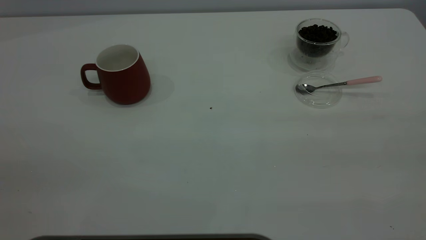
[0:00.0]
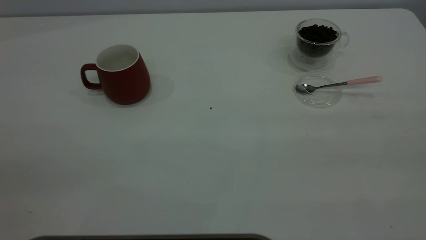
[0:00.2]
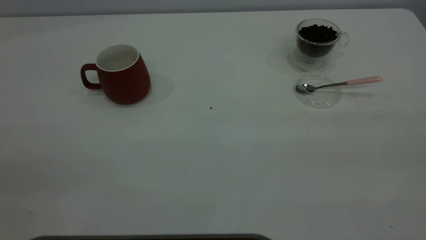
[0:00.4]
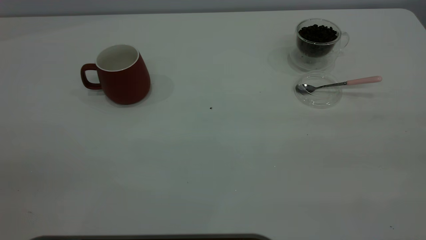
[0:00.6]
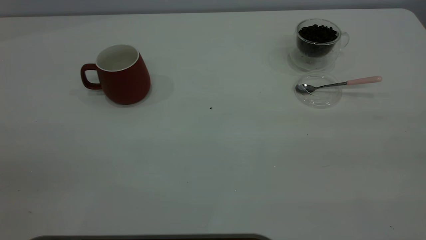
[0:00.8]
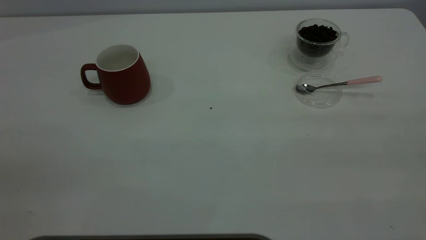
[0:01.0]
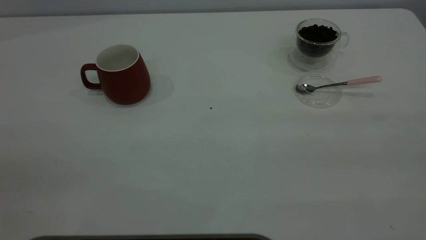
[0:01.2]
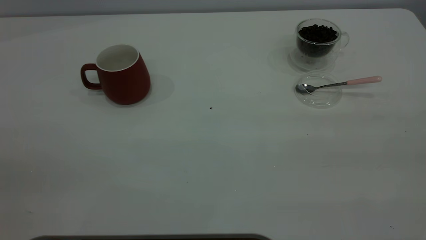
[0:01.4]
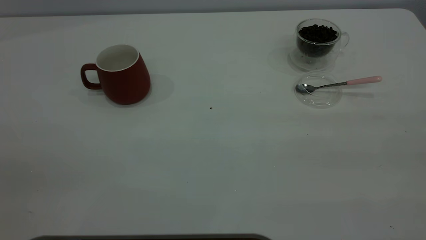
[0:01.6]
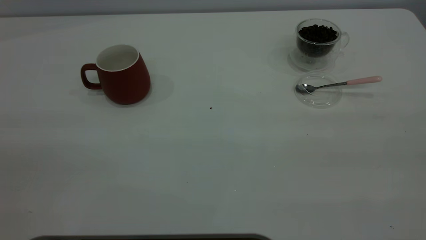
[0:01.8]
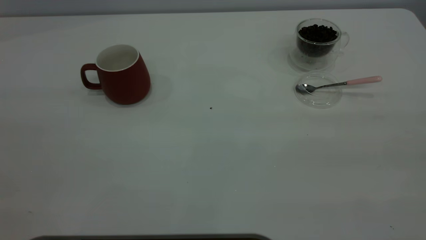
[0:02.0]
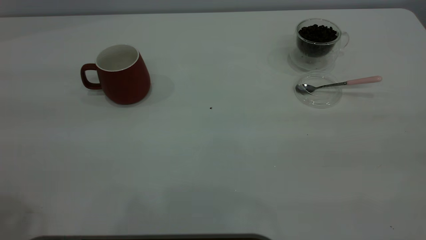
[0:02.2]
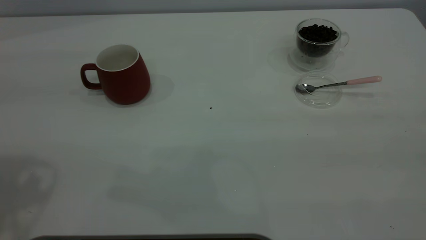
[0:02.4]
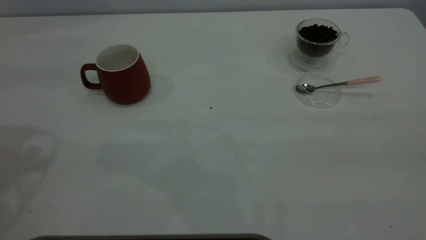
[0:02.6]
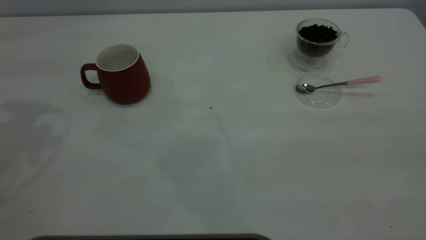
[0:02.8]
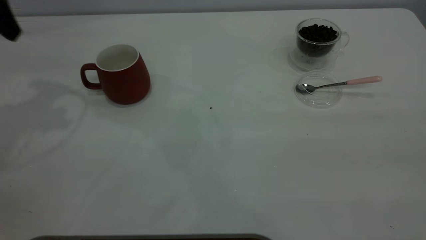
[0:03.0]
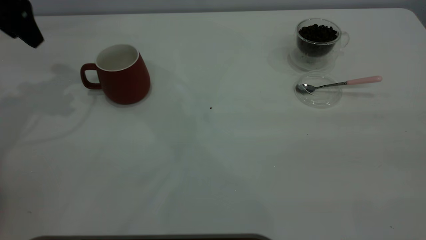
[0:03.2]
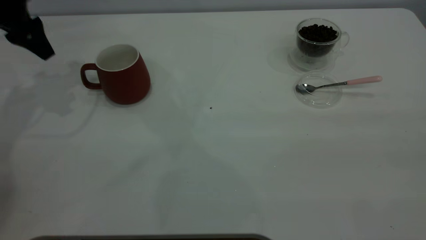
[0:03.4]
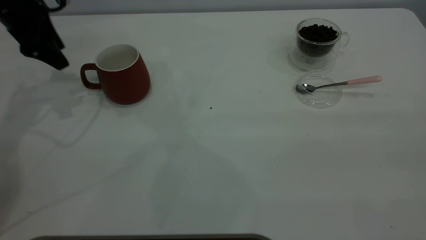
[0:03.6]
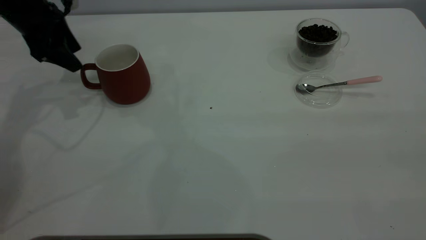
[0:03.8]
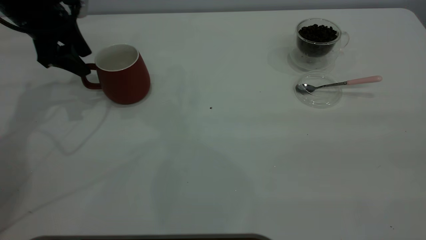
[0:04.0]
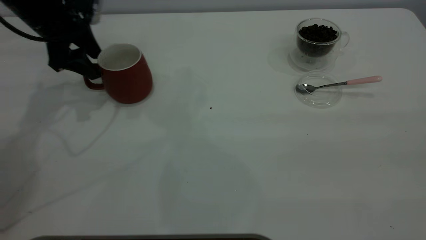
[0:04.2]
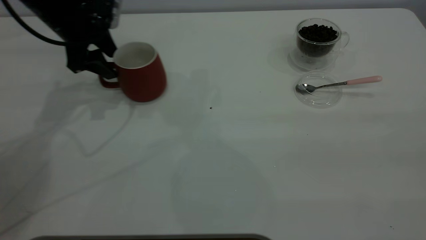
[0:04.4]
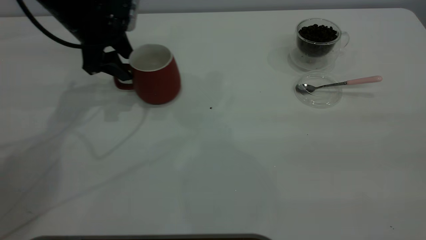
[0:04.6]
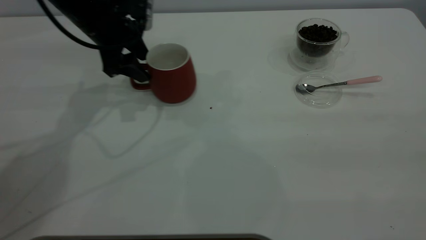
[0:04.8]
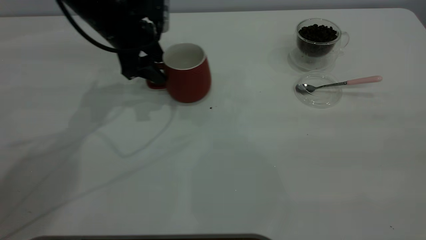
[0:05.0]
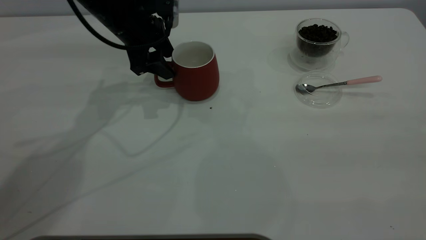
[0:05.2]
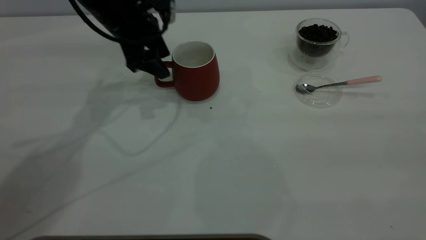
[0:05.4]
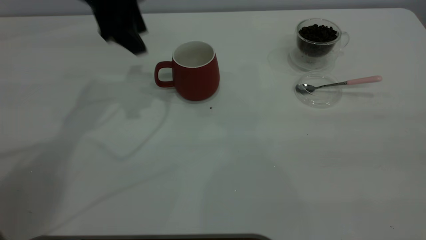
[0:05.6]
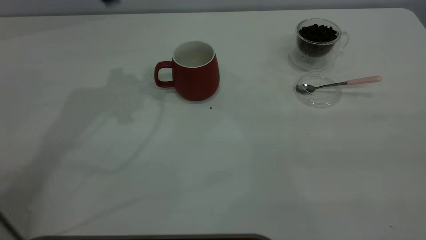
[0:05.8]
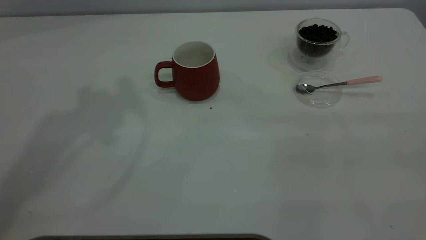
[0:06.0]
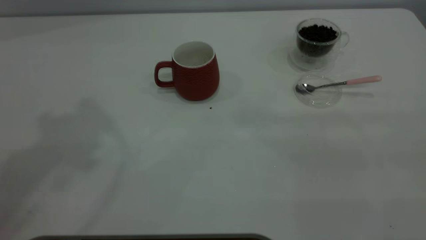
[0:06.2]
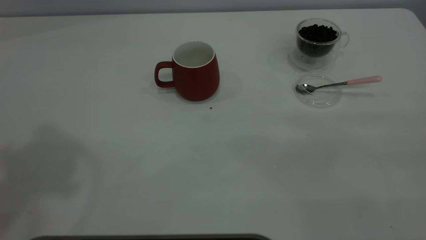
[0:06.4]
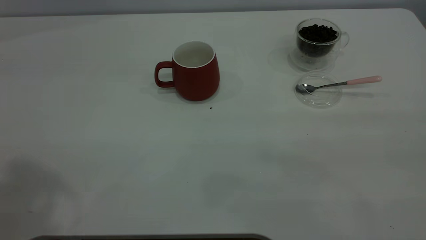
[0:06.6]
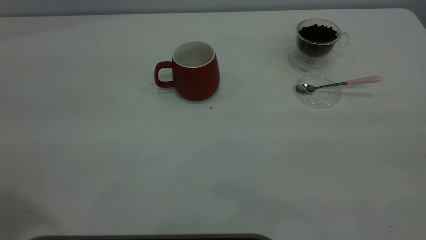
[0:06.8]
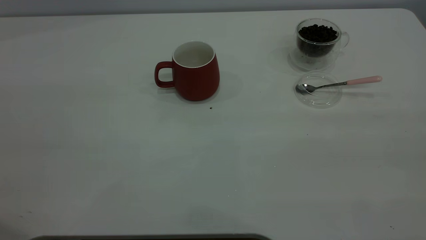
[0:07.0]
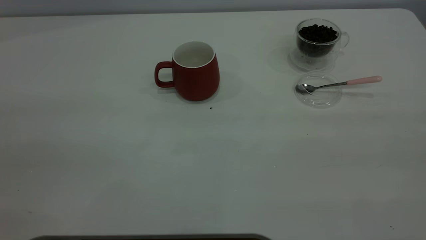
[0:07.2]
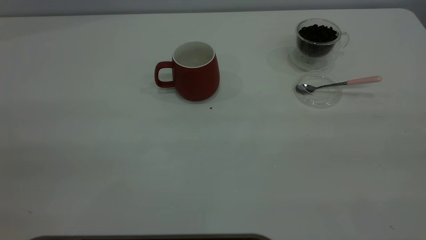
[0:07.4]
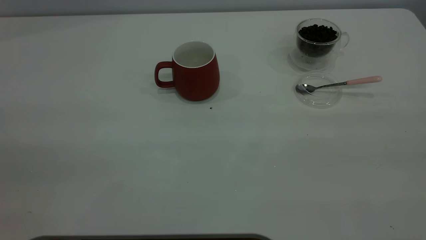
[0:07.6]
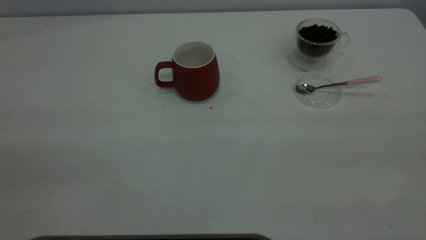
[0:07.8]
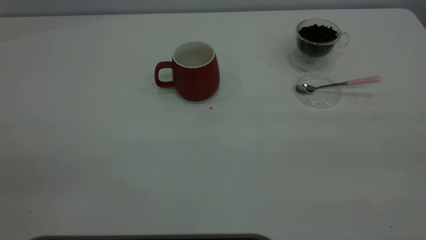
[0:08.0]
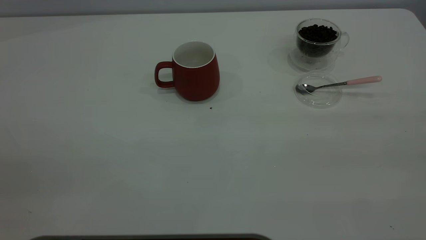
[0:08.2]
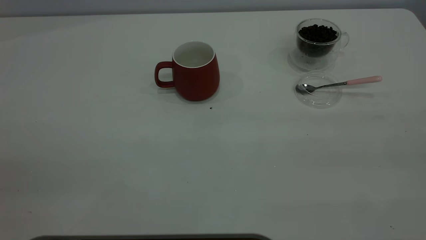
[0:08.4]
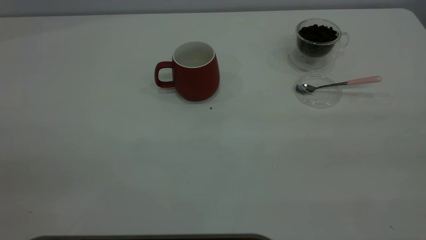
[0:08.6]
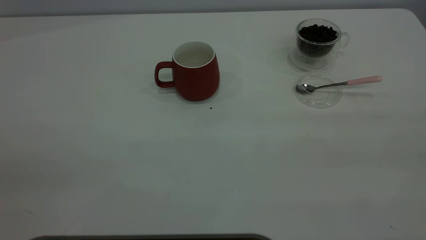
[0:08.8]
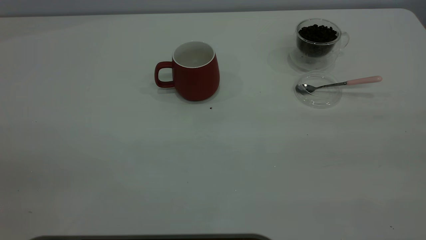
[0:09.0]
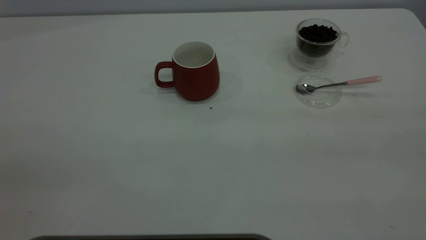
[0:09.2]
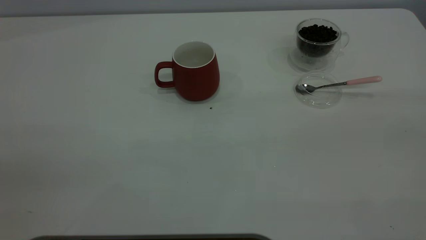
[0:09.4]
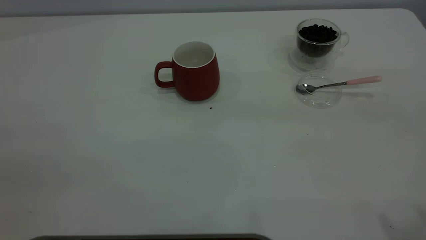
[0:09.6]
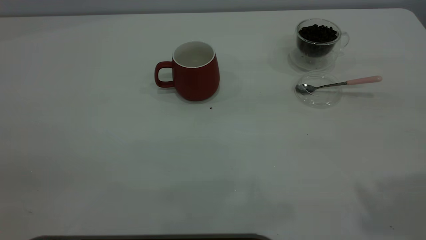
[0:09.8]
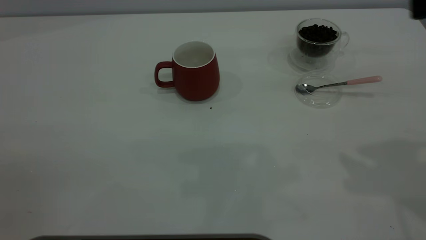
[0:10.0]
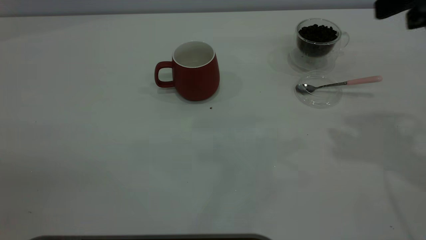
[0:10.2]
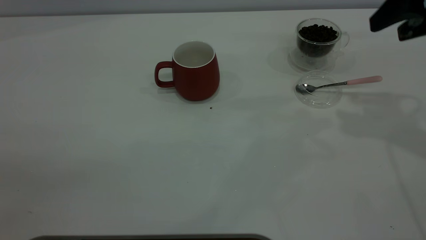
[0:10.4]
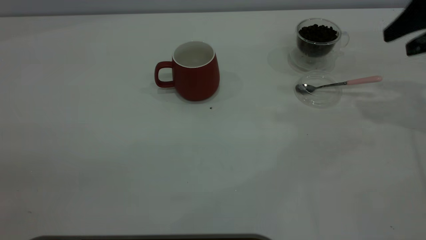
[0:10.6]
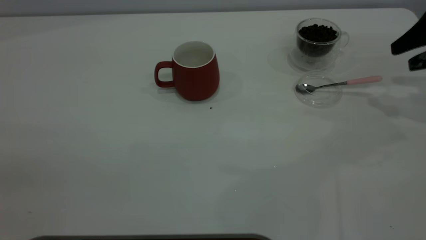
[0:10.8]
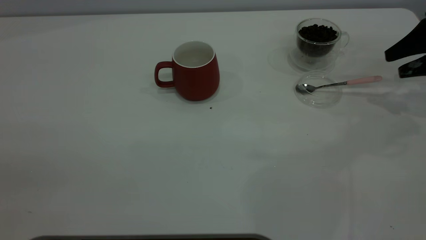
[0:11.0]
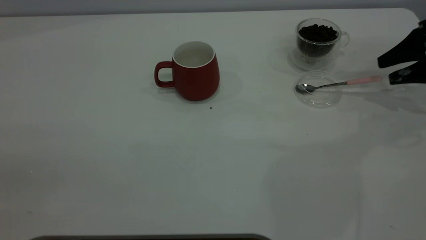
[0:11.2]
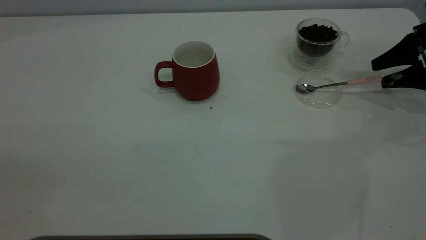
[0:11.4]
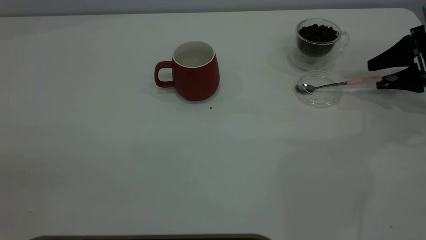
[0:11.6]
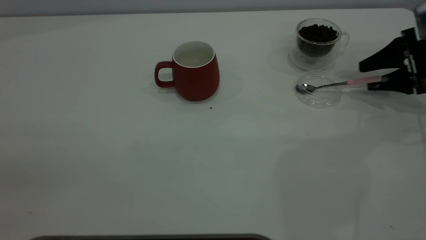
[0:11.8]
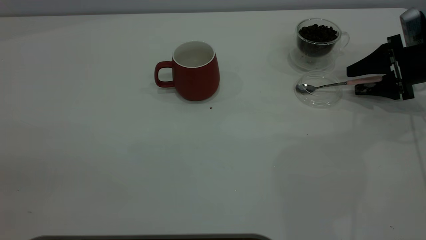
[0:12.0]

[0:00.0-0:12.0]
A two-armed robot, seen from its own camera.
Task of the whole recording: the left gripper place the red cup in the center of the table, the right gripper take the pink spoon from the cup lid and scoop out the coffee beans from the coffee cup and put them into the red cup, the right gripper put the spoon back into the cup lid.
Step, 0:00.0 to 0:05.4: Move the cup to the center of view.
0:00.0 to 0:01.6: Neither gripper changes place.
0:03.0 to 0:04.4: The left gripper heads downward, to the right and forward, covering about 15 cm.
0:04.4 to 0:06.0: The left gripper is displaced upward by some 30 cm.
0:09.0 to 0:10.4: The right gripper goes some 35 cm forward.
0:10.4 to 0:12.0: The right gripper is displaced downward by some 20 cm.

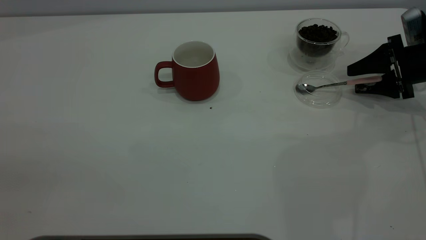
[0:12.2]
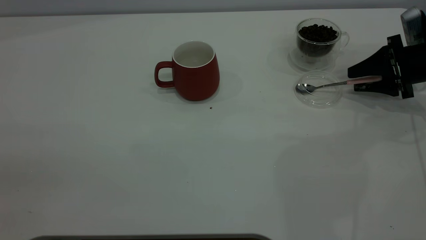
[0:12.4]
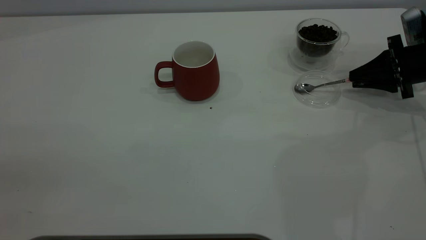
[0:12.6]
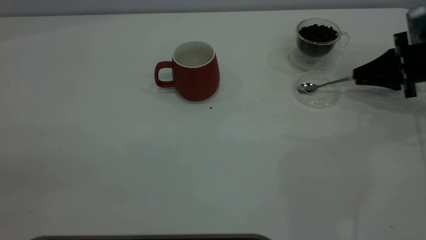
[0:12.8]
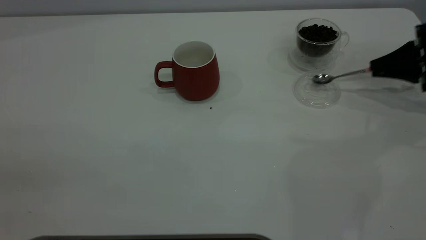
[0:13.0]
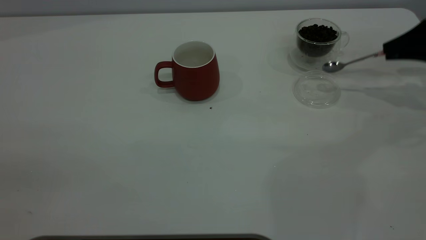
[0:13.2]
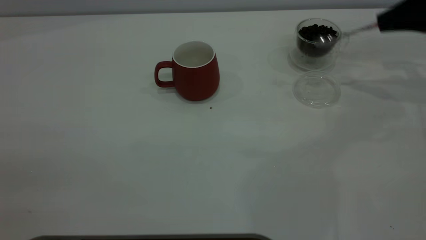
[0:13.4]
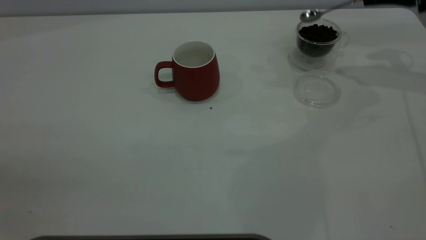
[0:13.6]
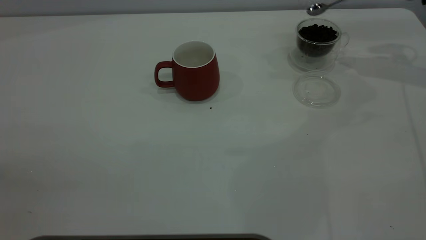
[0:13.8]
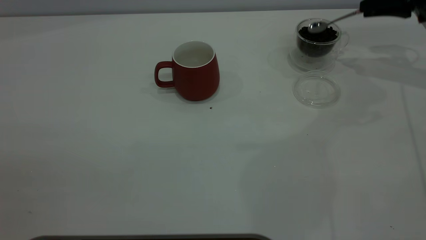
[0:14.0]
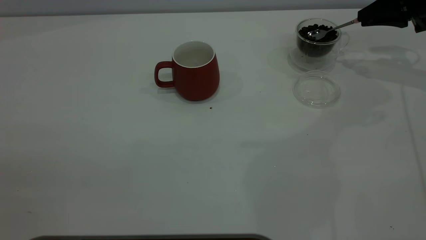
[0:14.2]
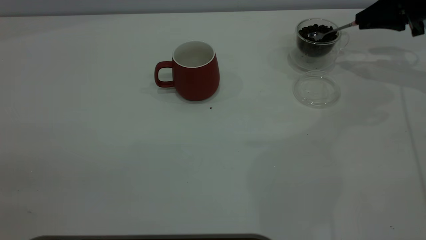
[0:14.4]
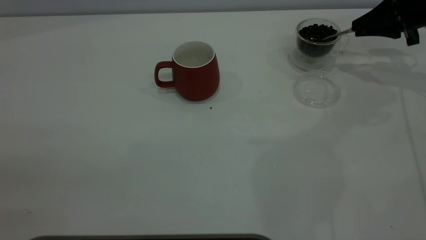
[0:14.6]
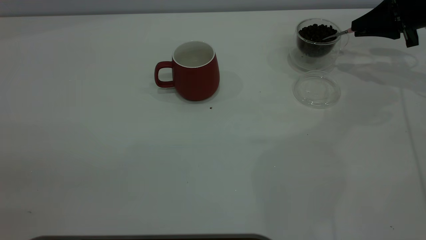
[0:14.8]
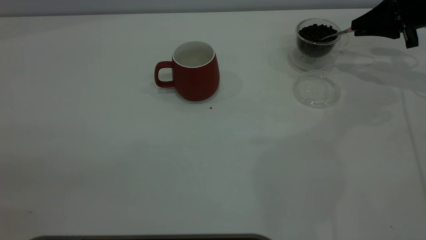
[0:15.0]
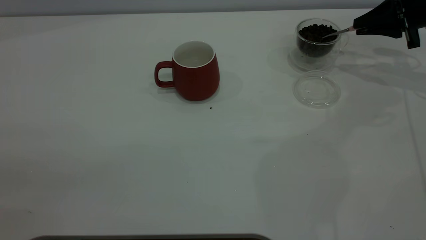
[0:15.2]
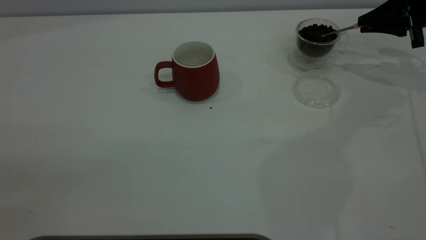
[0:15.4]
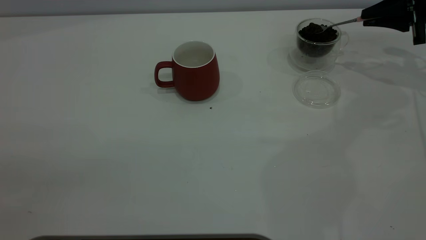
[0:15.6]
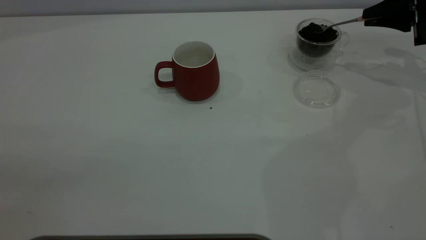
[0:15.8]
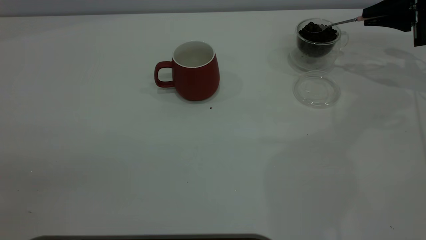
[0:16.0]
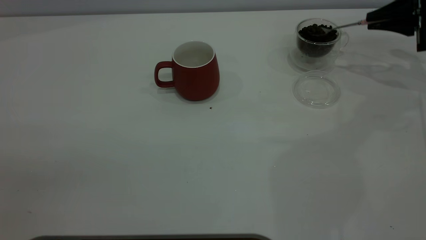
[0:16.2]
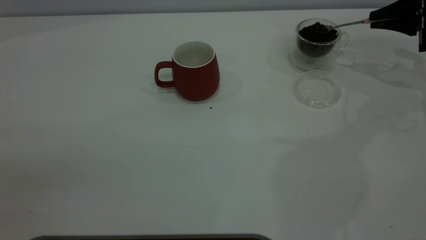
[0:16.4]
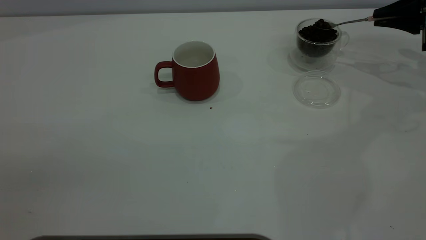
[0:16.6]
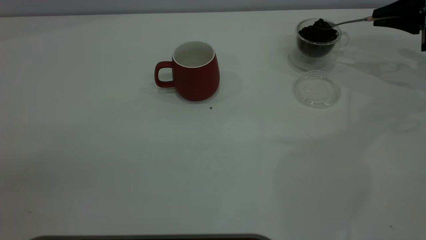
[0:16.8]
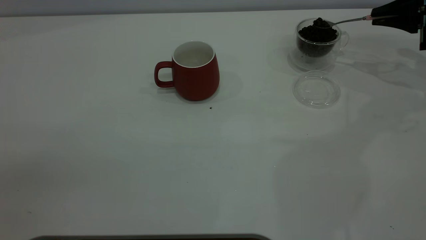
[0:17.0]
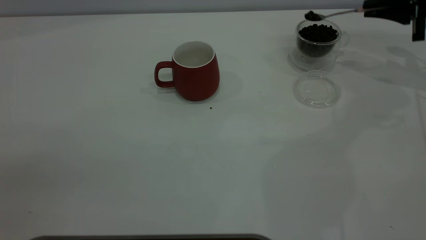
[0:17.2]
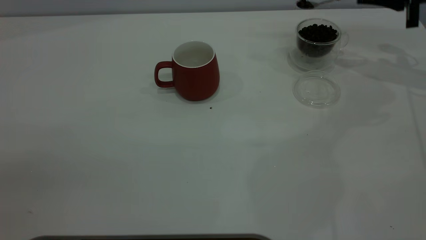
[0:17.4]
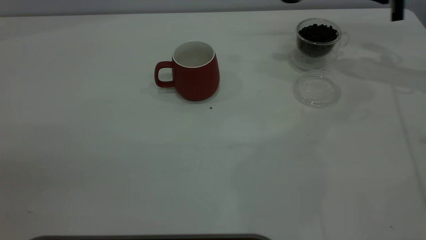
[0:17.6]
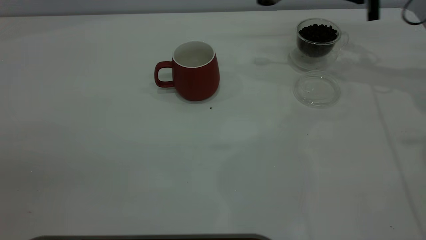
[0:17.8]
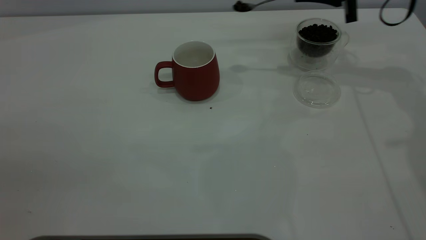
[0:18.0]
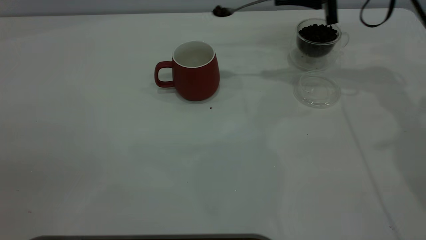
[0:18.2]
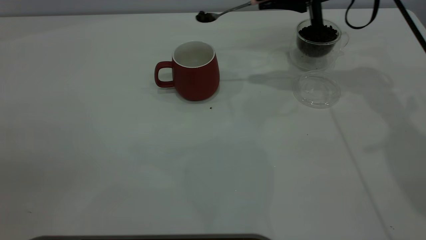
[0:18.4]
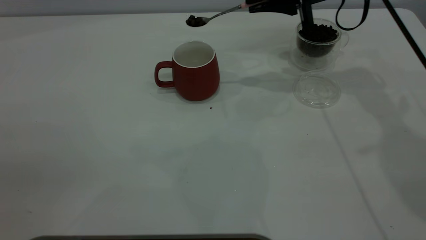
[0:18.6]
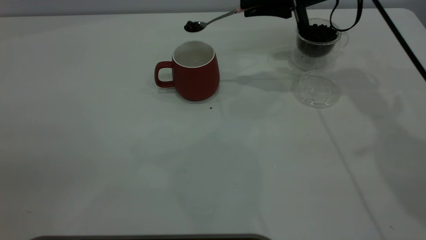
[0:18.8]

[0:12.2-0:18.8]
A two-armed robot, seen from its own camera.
Task of the whole recording: the left gripper place the red cup in the center of the table, the right gripper take the pink spoon from the cup lid and scoop out the coffee beans from the coffee cup and put them into the red cup, the right gripper put the spoon back into the cup lid.
0:12.2 to 0:13.8: The right gripper moves upward and forward, approximately 15 cm, and closes its fingers.
0:13.8 to 0:15.4: The right gripper is displaced downward by about 5 cm.
0:15.4 to 0:17.2: There are only small adjustments of the grippers.
0:17.2 to 0:18.8: The right gripper moves to the left, some 20 cm.
